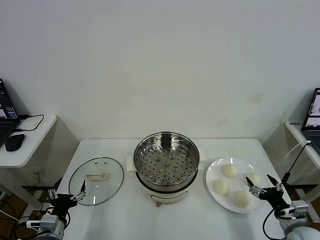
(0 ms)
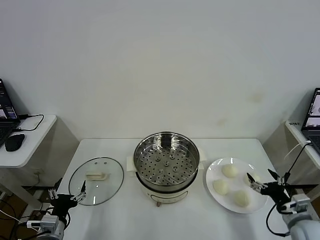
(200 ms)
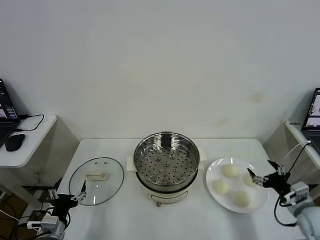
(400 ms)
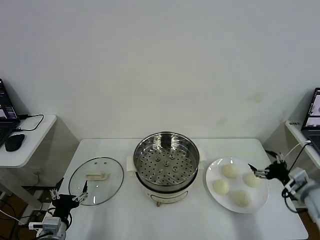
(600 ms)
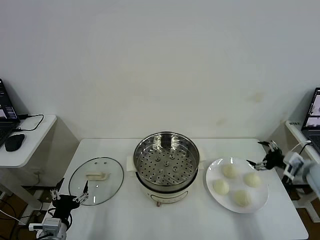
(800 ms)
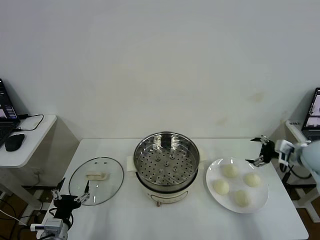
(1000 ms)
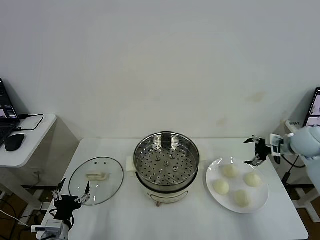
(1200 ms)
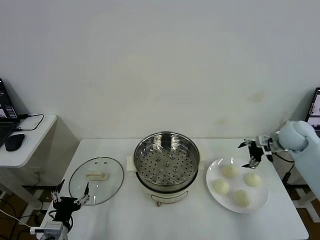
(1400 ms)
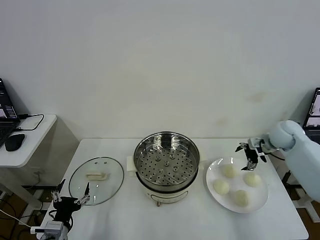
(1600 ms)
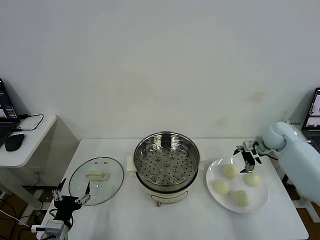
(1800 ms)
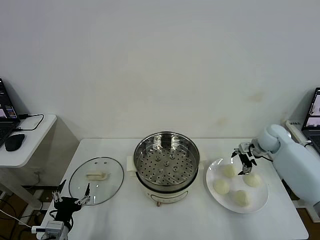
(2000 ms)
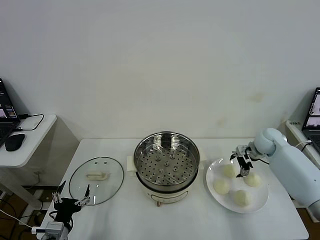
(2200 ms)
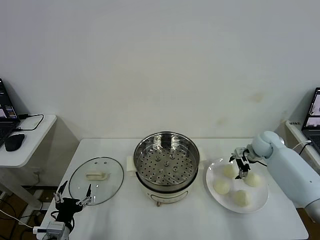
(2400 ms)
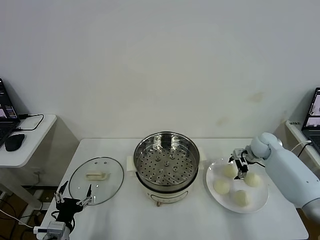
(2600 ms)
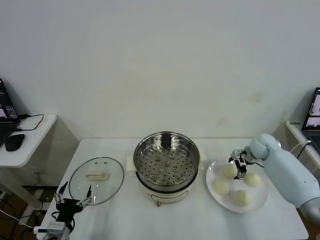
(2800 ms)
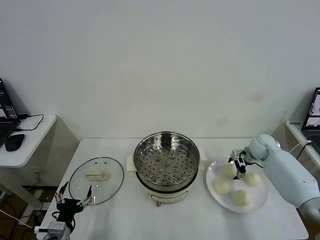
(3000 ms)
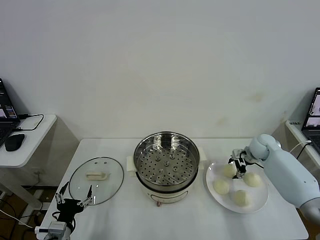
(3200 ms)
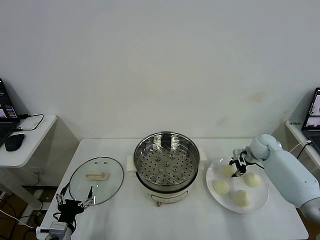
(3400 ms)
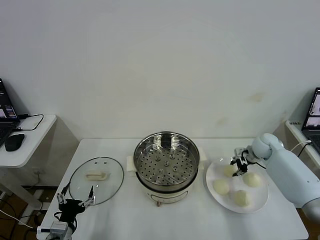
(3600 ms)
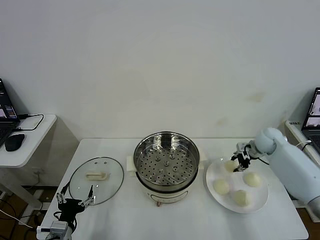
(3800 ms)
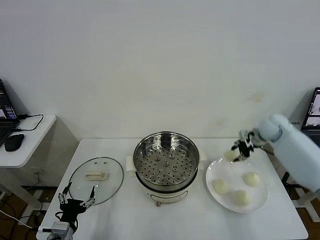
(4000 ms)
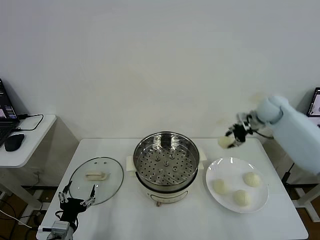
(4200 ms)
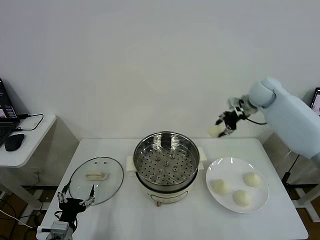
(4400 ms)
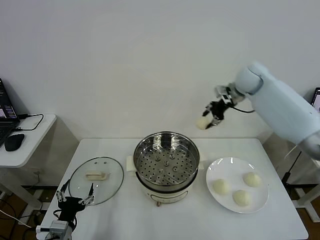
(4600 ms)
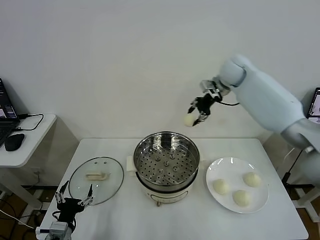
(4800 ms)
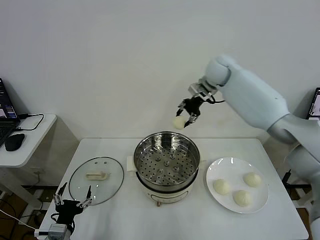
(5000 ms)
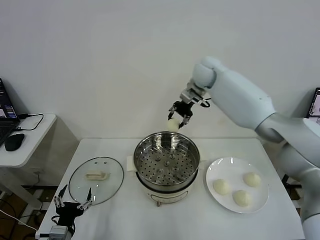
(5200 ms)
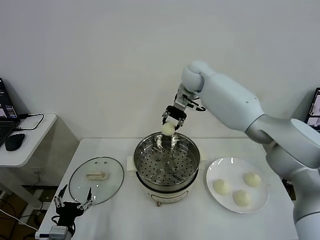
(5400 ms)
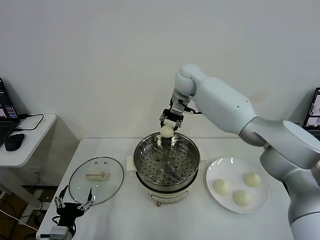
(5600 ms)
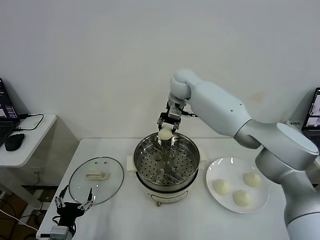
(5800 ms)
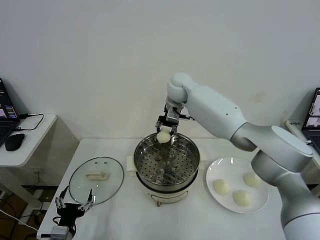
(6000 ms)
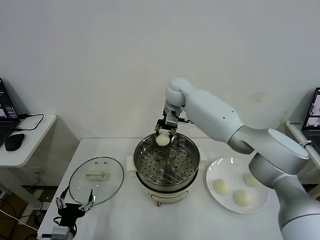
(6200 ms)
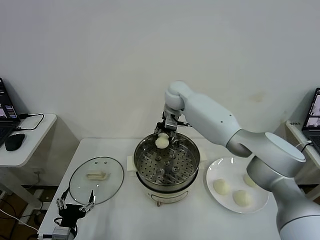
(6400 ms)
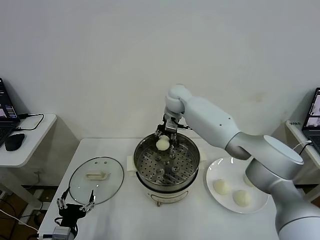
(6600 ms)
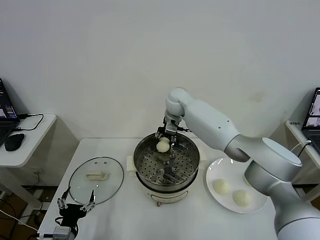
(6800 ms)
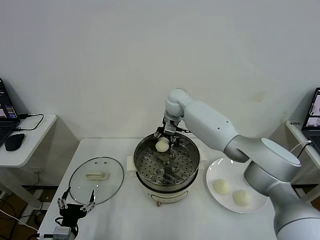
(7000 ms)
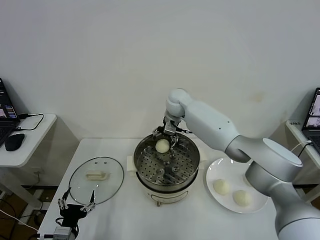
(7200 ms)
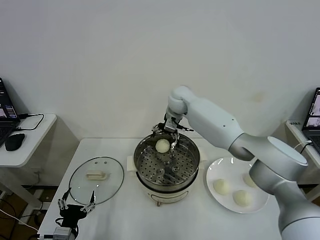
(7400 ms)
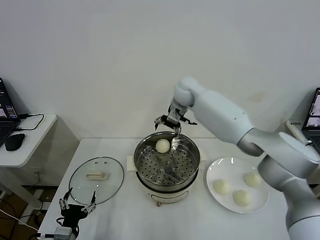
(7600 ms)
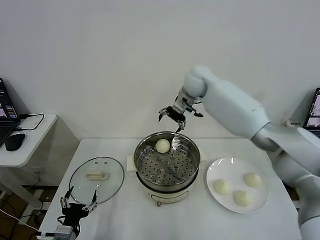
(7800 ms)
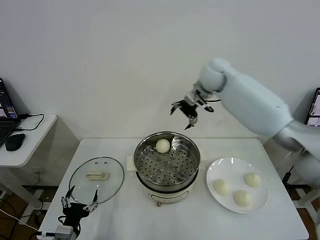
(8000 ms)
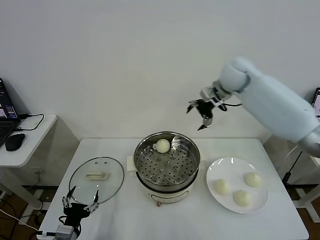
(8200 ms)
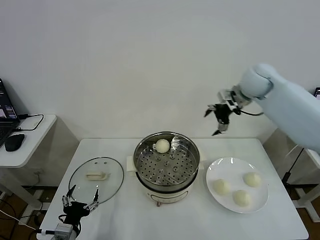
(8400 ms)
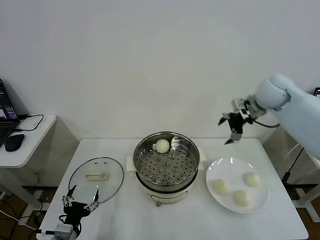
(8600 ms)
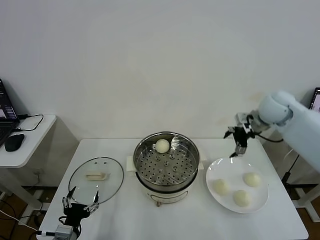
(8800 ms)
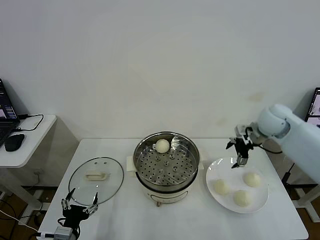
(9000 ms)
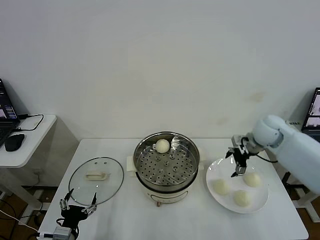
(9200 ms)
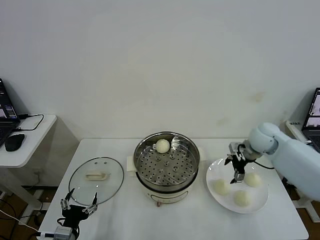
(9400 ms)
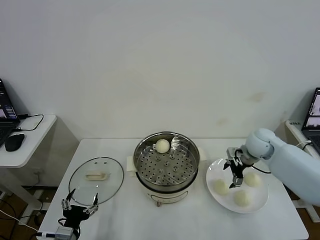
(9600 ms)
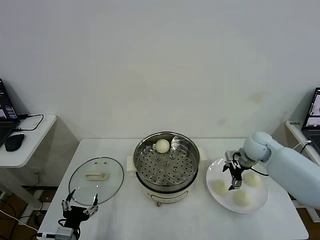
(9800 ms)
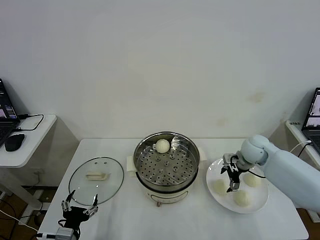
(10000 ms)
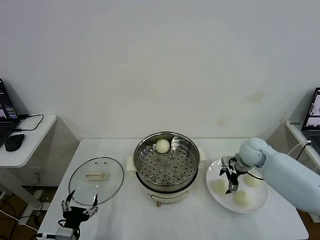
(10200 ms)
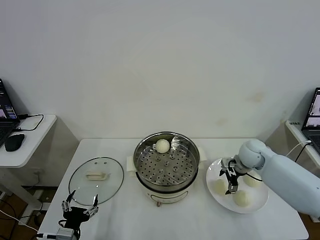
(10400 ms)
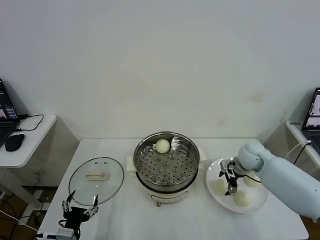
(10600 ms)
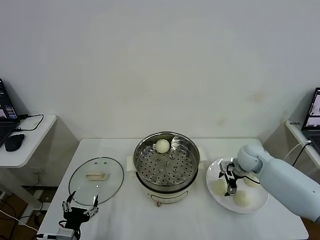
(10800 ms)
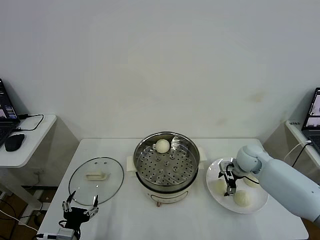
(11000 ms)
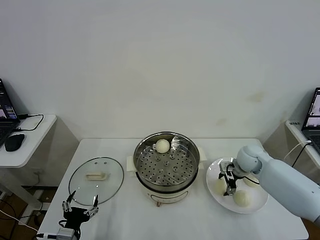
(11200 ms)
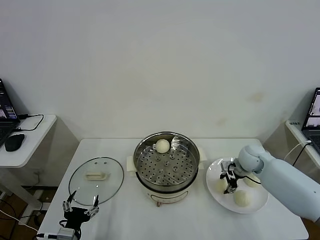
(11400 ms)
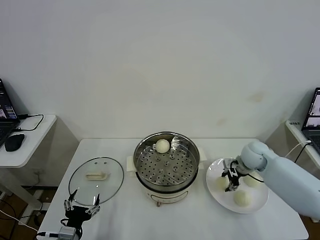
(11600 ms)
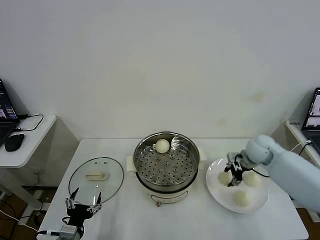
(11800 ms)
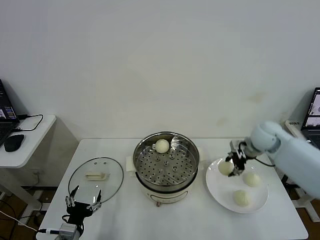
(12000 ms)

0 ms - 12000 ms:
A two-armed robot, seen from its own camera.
Task of the whole recording: take steamed baozi put them in steamer then cover it.
Step, 0 ms - 3400 ms: Grasp the baozi in the plate with right gripper.
Step, 3600 ms - 7200 ms: Place the baozi on the steamer with right gripper.
Step, 7600 ms - 11200 ms: Grasp the baozi in the plate with right gripper.
1600 ms - 3000 ms: The right gripper heads downward, covering approximately 10 cm.
3000 ms - 4400 ms: The right gripper goes about 25 cm upward, and closes up.
4400 ms - 6000 ms: The right gripper heads to the left, covering approximately 25 cm.
6000 ms - 7600 ms: The right gripper opens.
7600 ms - 9000 ms: The right gripper heads to the right and backward, covering some 30 cm.
9000 ms - 10400 ms: The right gripper heads downward, covering about 10 cm.
10400 ms - 12000 ms: The right gripper travels upward by roughly 10 cm, and closes its fingers.

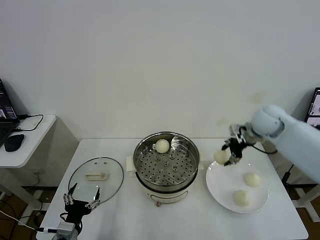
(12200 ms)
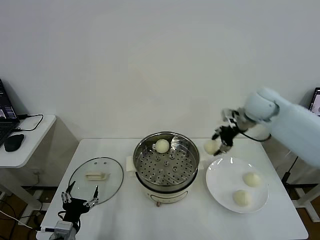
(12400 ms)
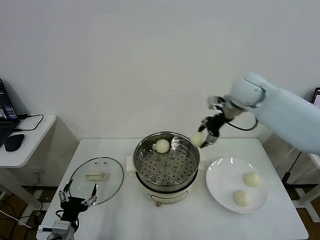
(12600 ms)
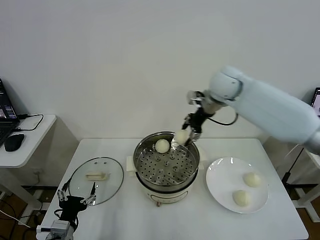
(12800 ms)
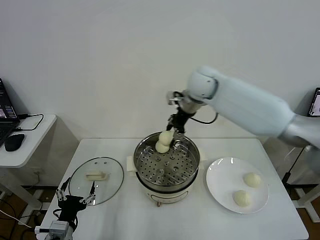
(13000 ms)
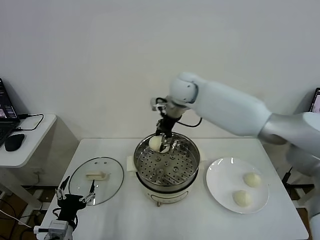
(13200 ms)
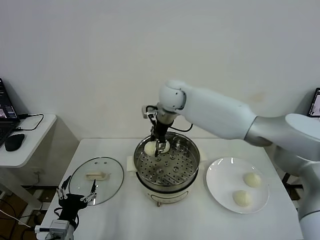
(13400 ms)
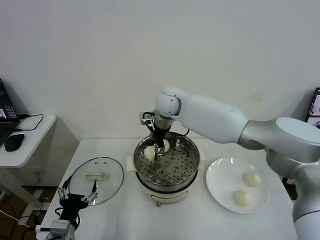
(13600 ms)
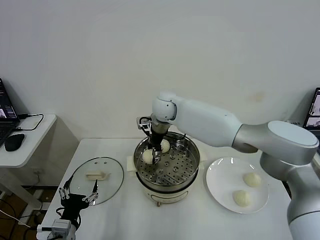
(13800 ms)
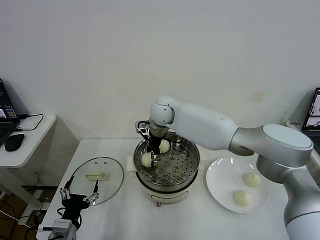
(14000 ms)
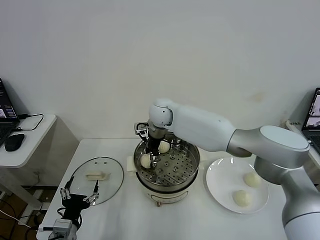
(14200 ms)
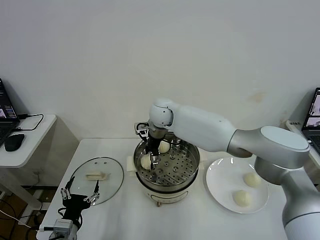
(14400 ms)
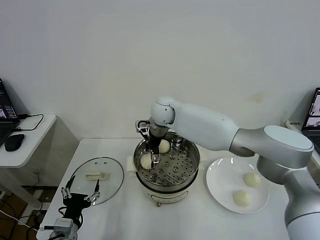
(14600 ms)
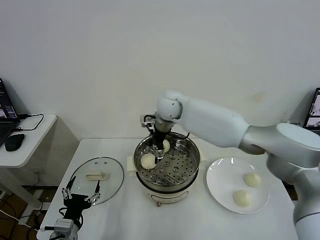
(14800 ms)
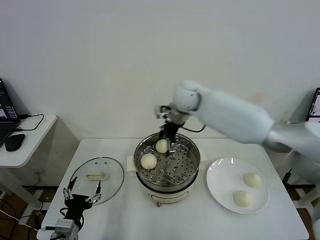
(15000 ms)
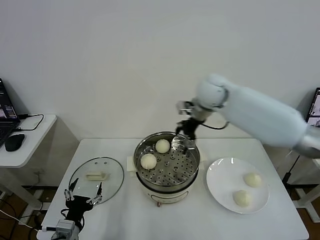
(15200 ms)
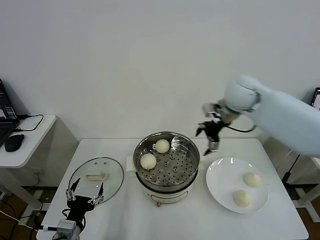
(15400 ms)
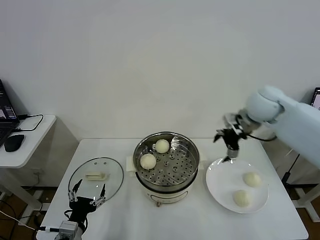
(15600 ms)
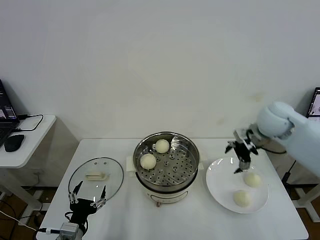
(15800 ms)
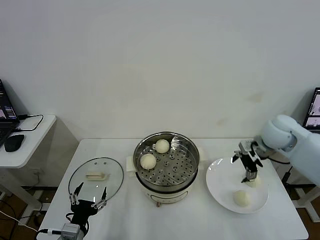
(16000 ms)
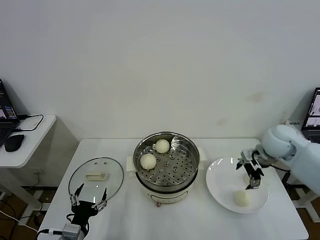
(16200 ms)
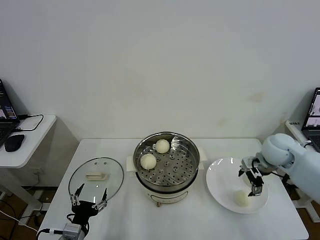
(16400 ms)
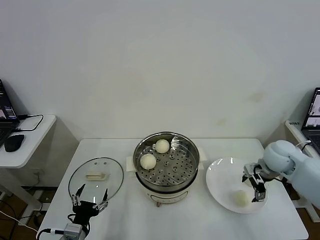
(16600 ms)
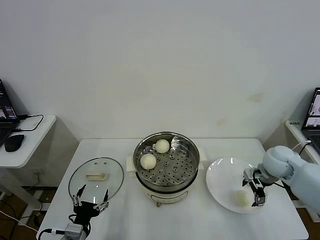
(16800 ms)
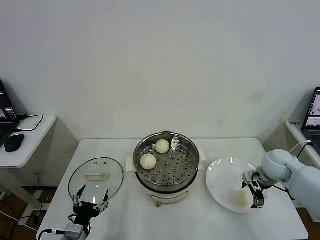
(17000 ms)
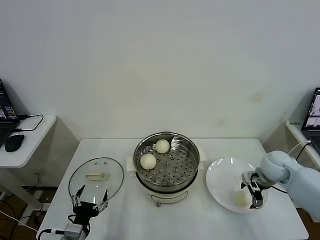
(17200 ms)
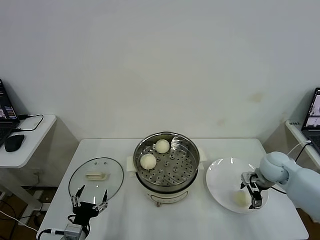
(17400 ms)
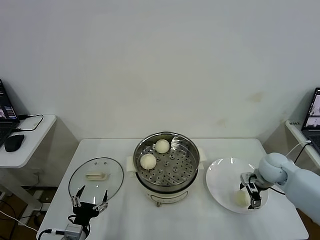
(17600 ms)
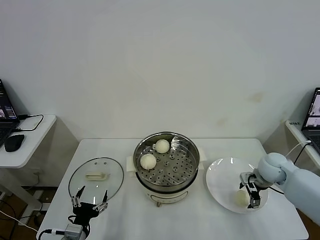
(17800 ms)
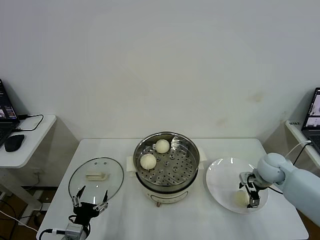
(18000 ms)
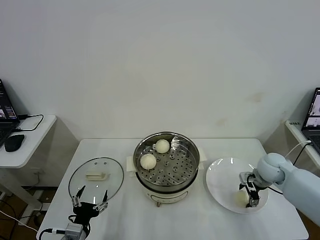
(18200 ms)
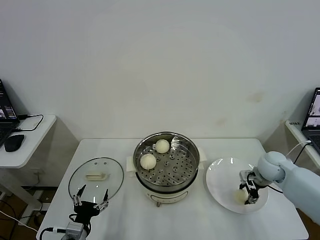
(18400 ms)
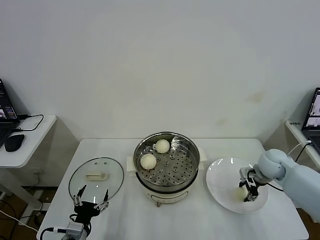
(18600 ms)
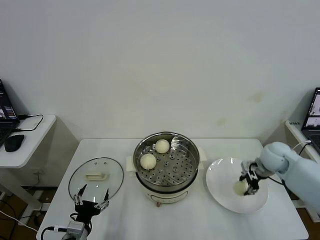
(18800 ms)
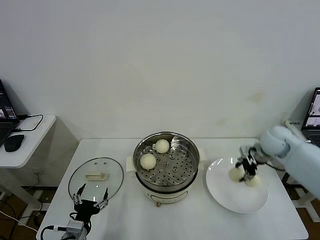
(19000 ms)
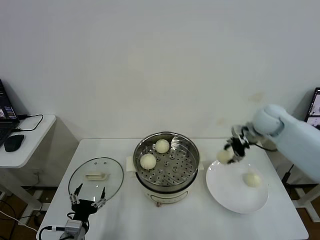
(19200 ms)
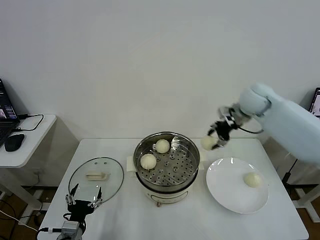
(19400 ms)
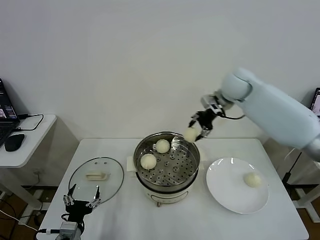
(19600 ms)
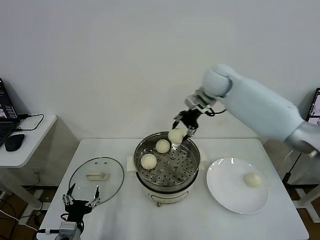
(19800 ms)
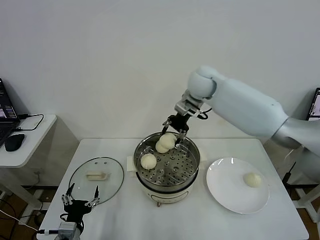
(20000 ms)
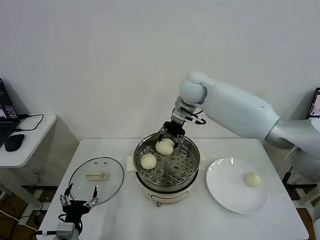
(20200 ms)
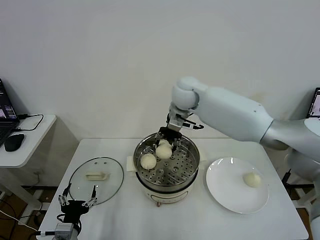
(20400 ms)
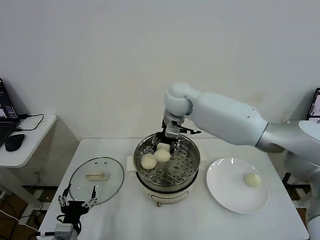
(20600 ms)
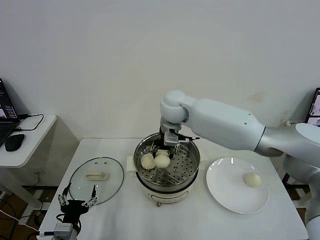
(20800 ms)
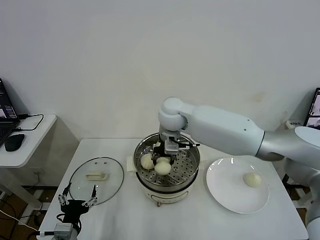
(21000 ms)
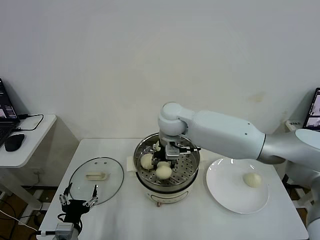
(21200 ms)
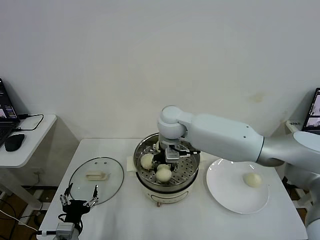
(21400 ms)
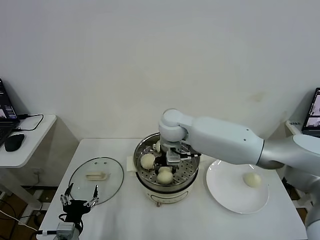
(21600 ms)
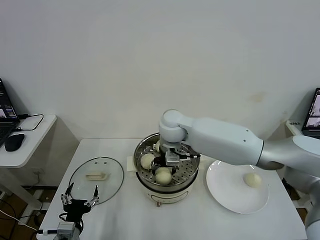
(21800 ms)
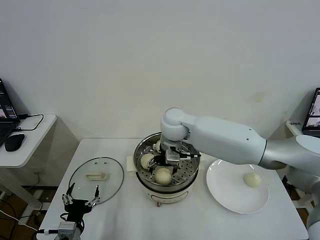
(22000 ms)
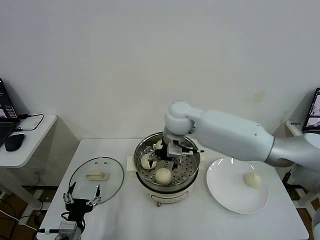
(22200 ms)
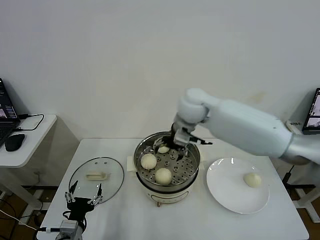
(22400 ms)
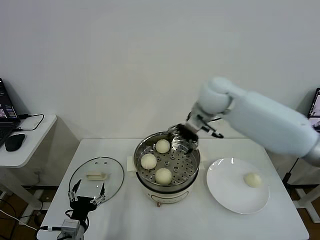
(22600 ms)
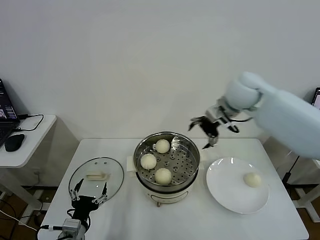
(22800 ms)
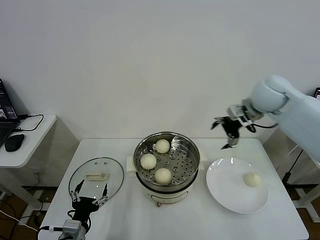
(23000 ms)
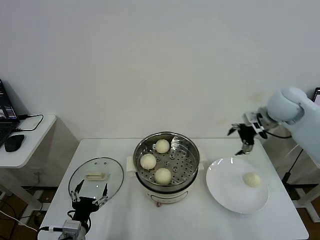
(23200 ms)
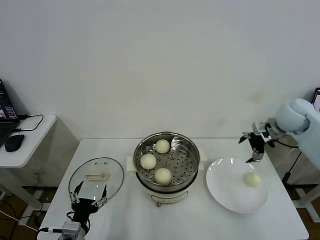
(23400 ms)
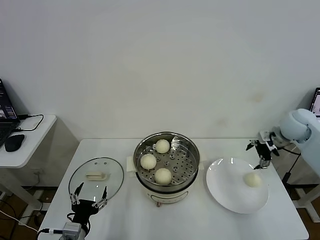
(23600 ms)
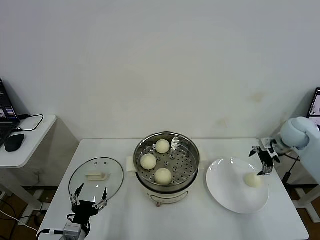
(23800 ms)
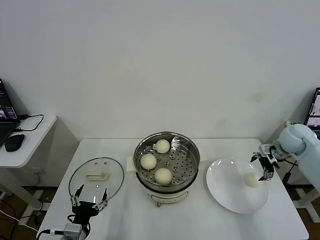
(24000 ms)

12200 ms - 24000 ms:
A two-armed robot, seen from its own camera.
Task of the whole recording: take steamed baozi put them in steamer then cover it.
Step, 12200 ms - 14600 ms: Place the baozi on the steamer with right gripper.
Step, 14800 ms - 18400 ms: Grasp the baozi in the plate with right gripper.
Step, 18600 ms - 22000 ms: Place the baozi on the steamer with right gripper.
12200 ms - 13600 ms: The right gripper is displaced to the left by about 30 cm.
13600 ms - 15200 ms: The right gripper goes roughly 15 cm to the right, and opens.
15200 ms - 16600 ms: The right gripper goes some 30 cm to the right, downward and backward.
16600 ms - 18200 ms: The right gripper moves downward, about 5 cm, and closes up.
18200 ms - 19600 ms: The right gripper is displaced upward, to the left and forward by roughly 35 cm.
19600 ms - 21000 ms: The right gripper heads to the left and backward, covering about 20 cm.
21000 ms - 22600 ms: The right gripper goes roughly 15 cm to the right and upward, and opens.
22600 ms - 24000 ms: The right gripper shifts about 35 cm to the right and downward.
